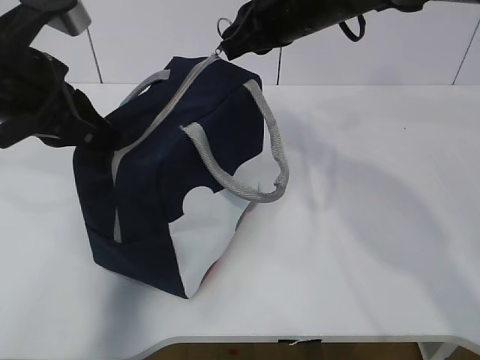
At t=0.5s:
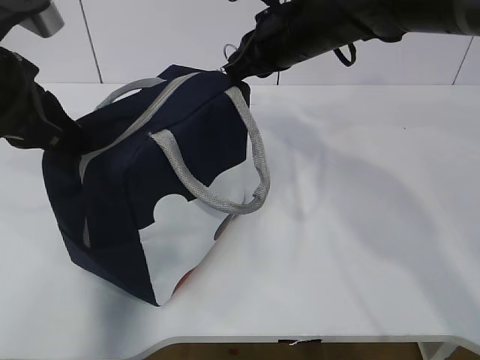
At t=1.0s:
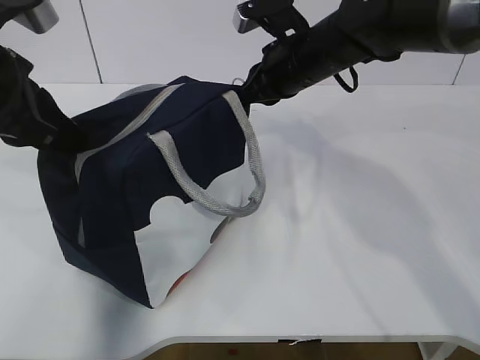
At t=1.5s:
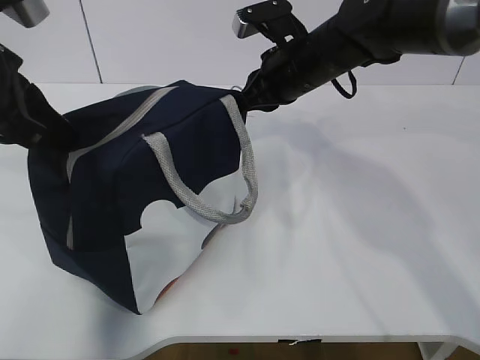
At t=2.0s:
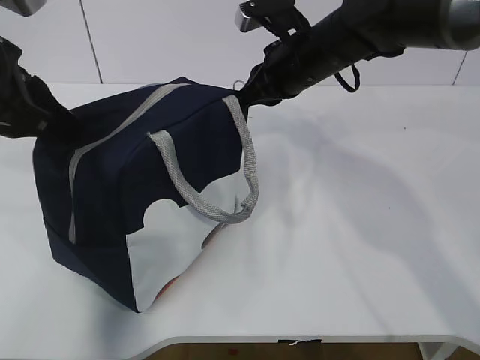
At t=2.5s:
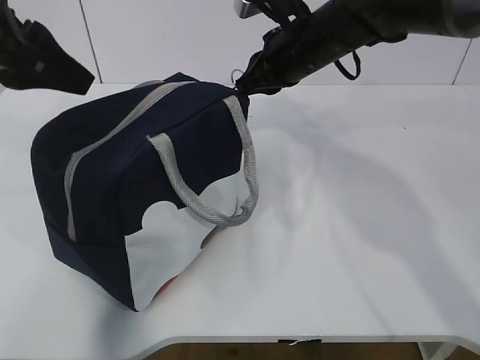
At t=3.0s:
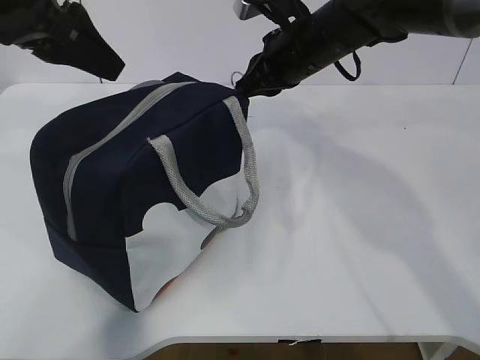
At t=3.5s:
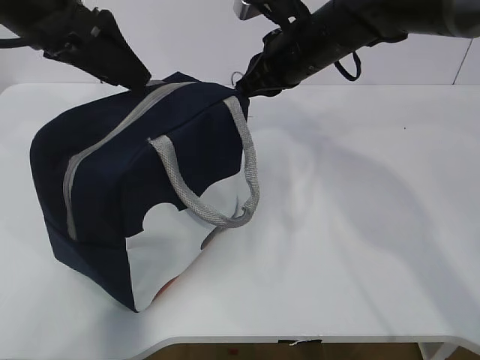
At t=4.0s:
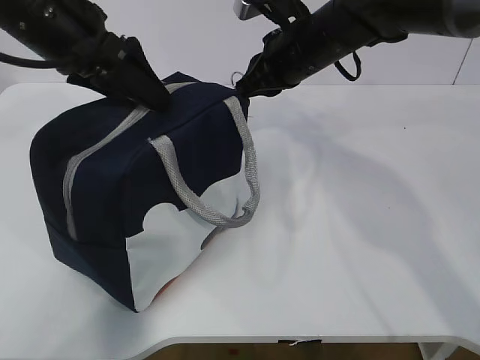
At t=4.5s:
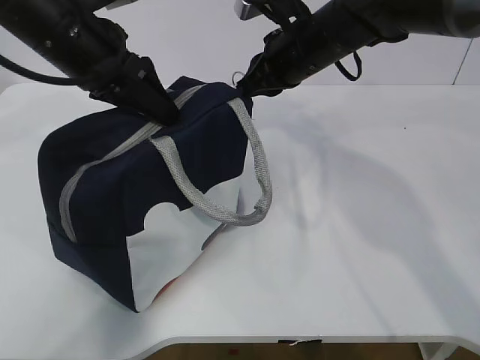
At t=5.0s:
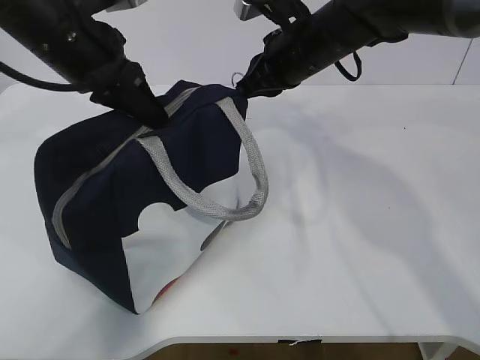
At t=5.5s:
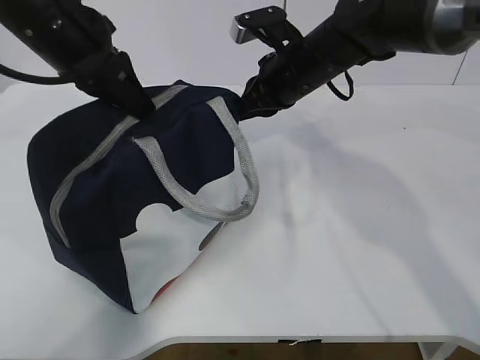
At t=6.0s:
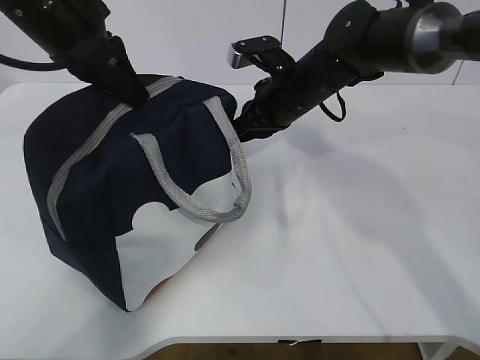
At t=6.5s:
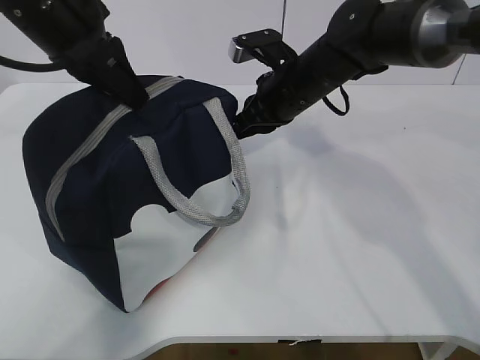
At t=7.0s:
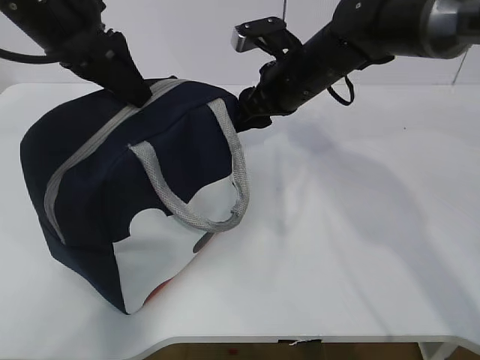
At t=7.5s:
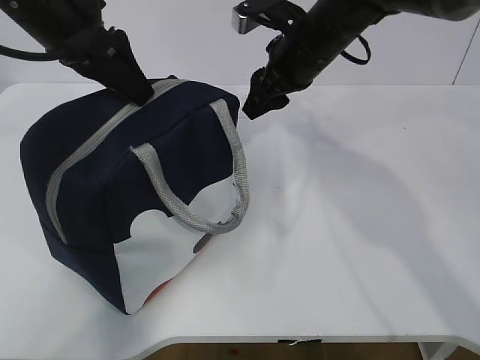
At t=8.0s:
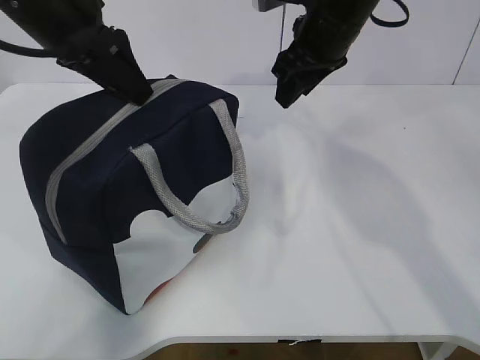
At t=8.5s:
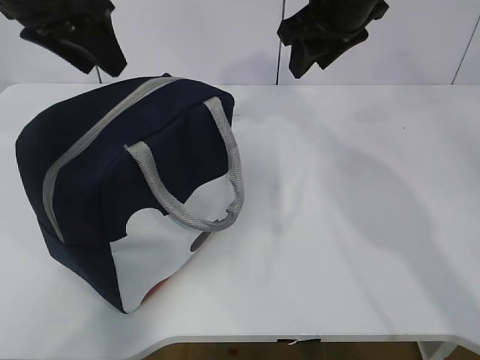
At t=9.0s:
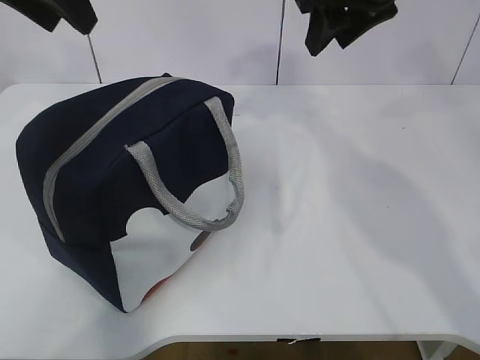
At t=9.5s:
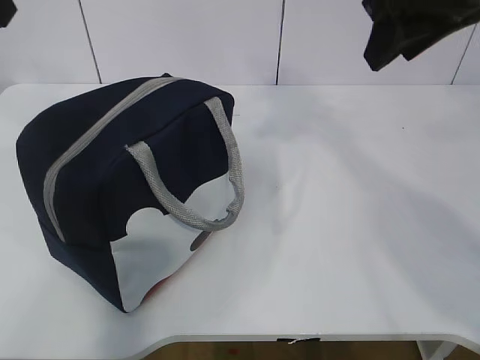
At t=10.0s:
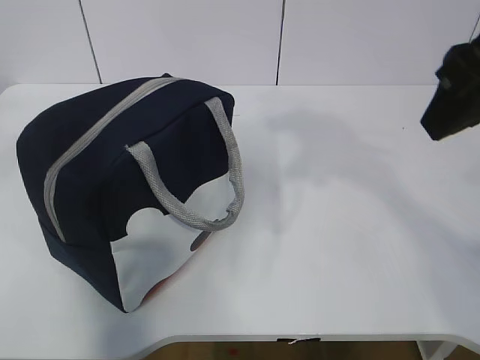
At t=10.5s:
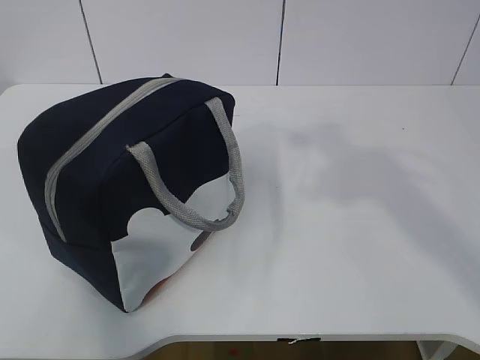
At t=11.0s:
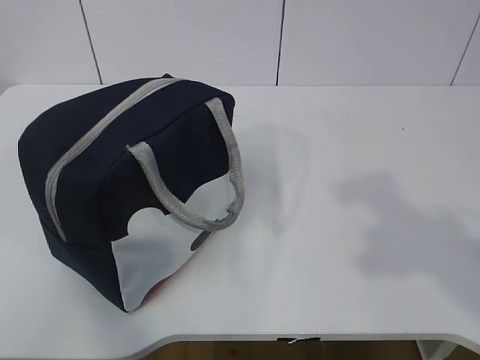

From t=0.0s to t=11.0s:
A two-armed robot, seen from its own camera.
Step, from t=0.0s to t=7.5s: zip up the zipper to close the bag.
From t=0.0s to t=2.0s: The right gripper shifts some 5 cm downward.
From t=2.0s to t=3.5s: The left gripper is displaced forward by some 5 cm, and opens.
From t=3.5s to t=5.5s: The left gripper closes.
From t=5.5s to t=7.5s: The right gripper opens, while the left gripper opens up.
From t=7.5s to t=9.0s: The left gripper is displaced upward by some 5 cm; the right gripper is displaced upward by approximately 10 cm.
From t=9.0s to t=11.0s: The two grippers go roughly 35 cm backward.

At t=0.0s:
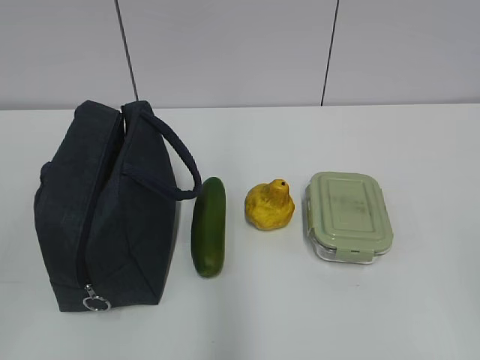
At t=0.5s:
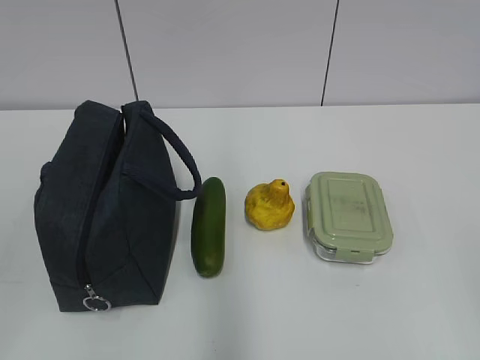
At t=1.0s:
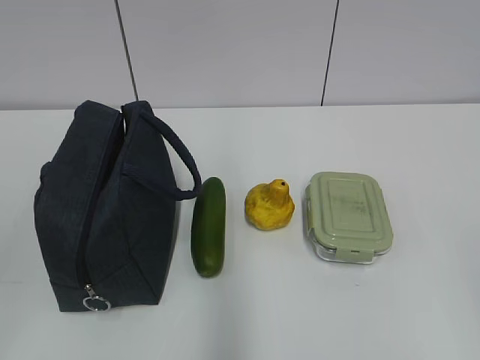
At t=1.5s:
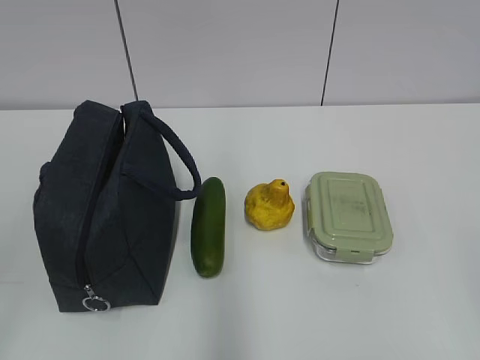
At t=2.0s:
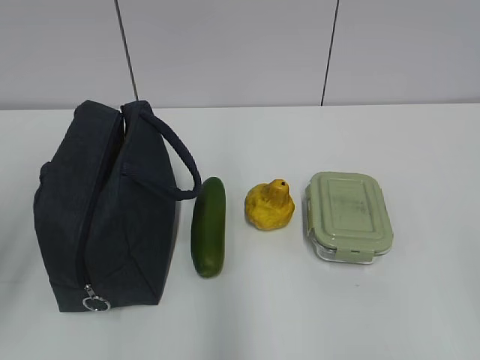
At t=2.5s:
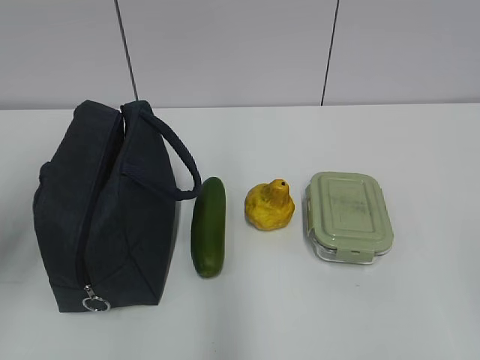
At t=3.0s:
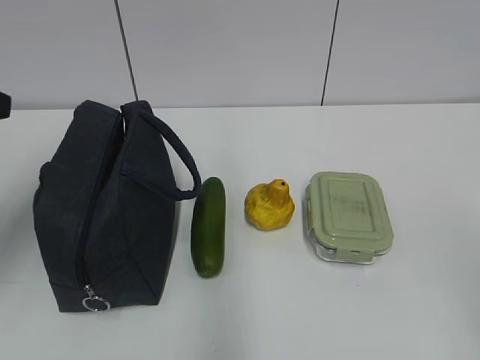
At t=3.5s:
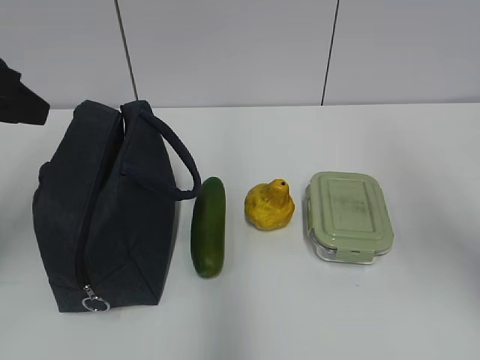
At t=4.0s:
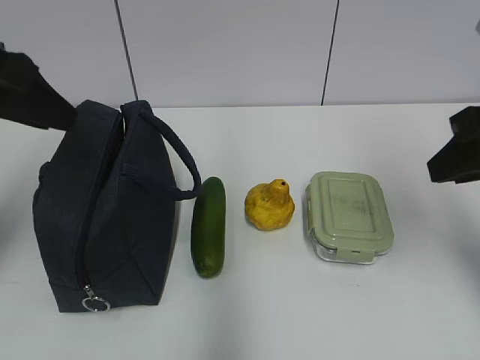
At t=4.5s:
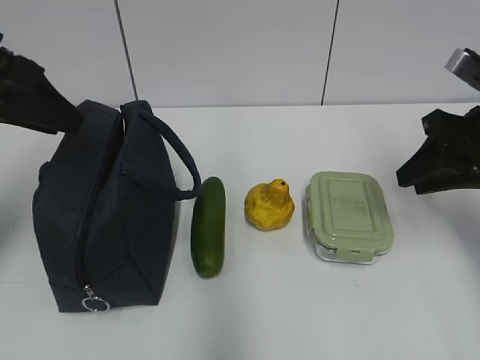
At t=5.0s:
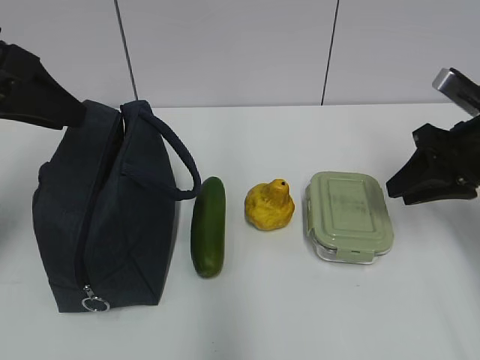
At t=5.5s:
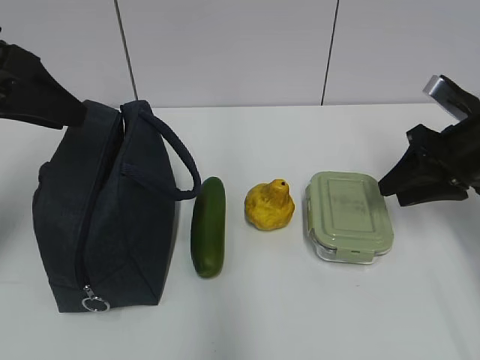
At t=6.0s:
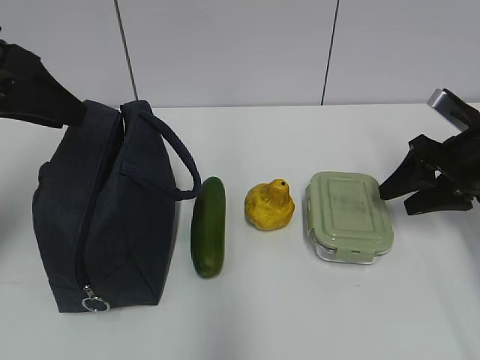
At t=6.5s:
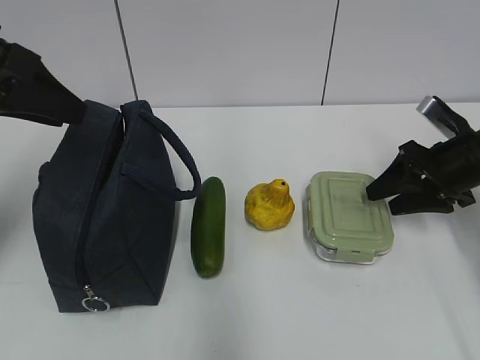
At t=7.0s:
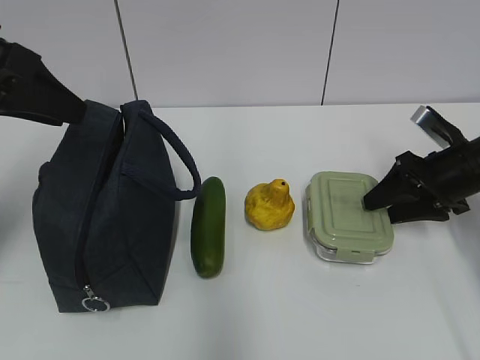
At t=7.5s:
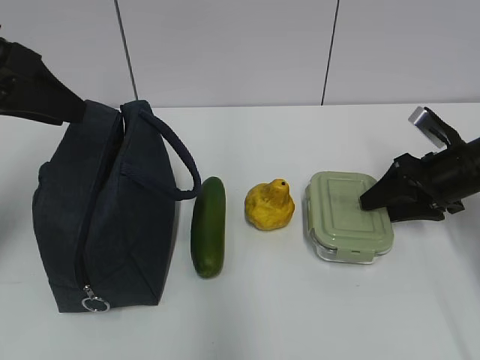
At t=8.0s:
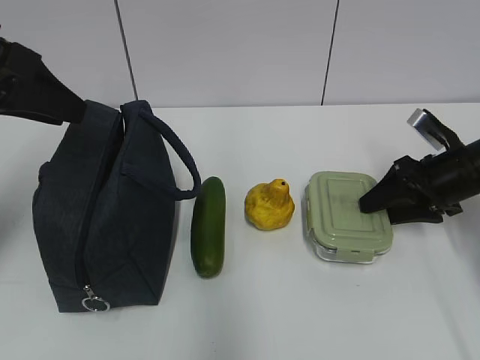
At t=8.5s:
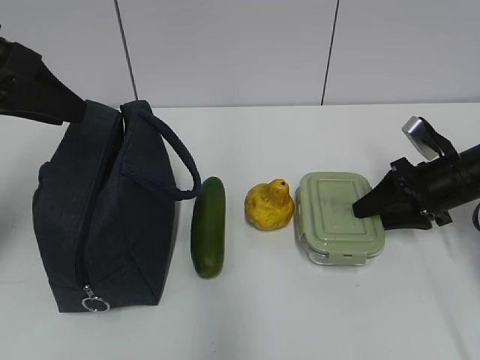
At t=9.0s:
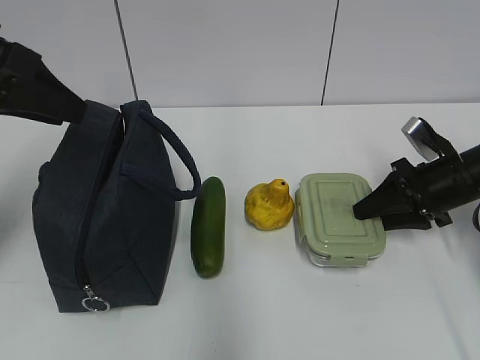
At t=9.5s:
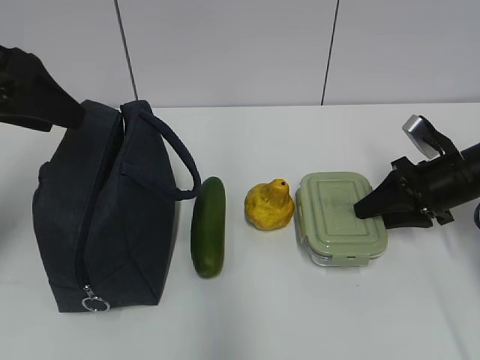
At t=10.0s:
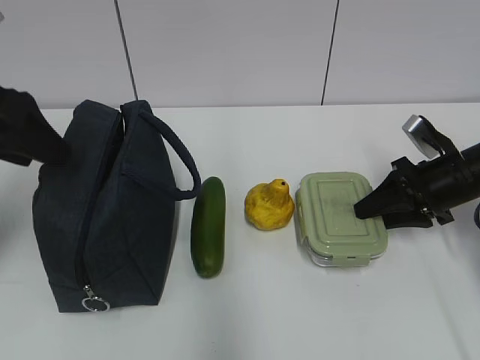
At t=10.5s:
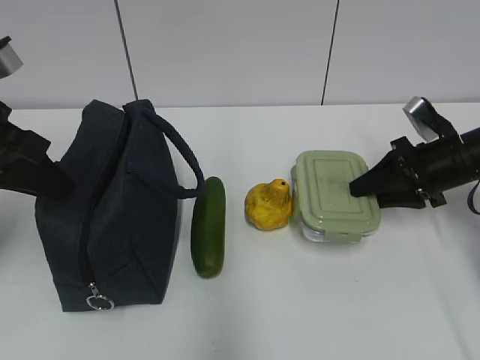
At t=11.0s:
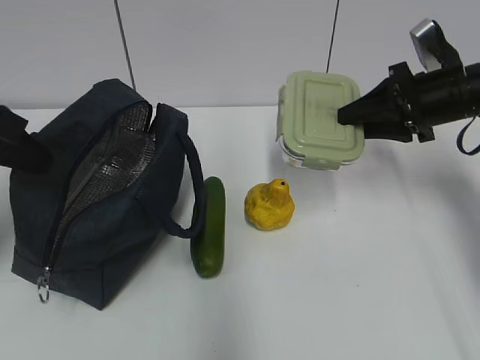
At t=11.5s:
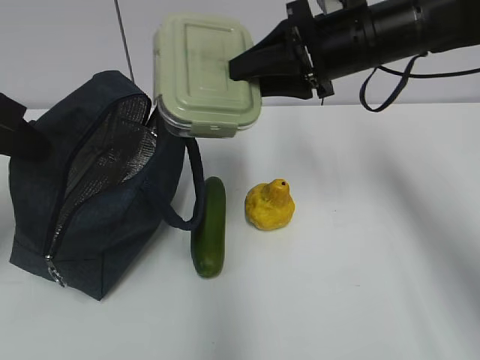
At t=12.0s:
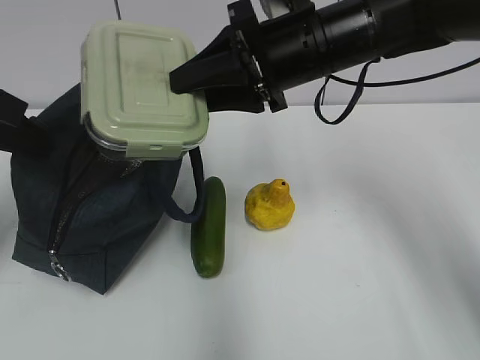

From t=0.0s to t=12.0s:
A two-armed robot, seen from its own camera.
Step, from t=0.0s to t=9.5s: Grab the lunch box with your right hand.
From t=2.0s to t=4.0s: The right gripper moves forward, approximately 25 cm. Meanwhile the left gripper travels forward by approximately 15 cm.
From t=4.0s to t=6.0s: The right gripper shifts some 20 cm downward, forward and to the right, and opens up.
From t=6.0s to t=8.0s: The grippers move only a little.
From t=8.0s to t=10.0s: The left gripper opens its fingers.
From t=10.0s to t=12.0s: The left gripper closes; the right gripper moves to the left and upward, some 25 cm.

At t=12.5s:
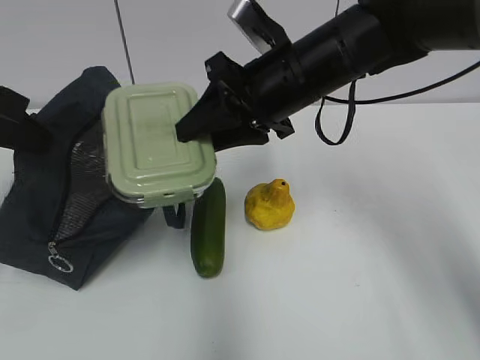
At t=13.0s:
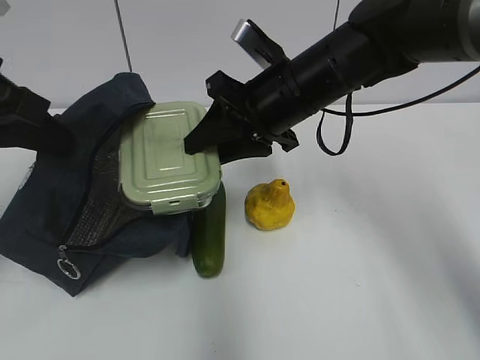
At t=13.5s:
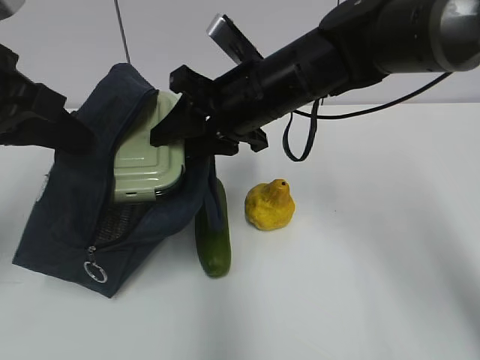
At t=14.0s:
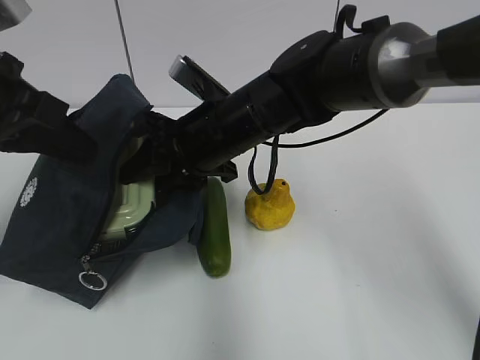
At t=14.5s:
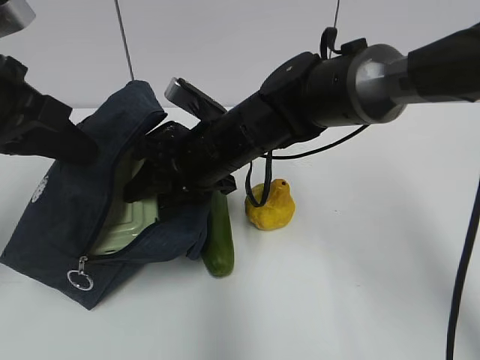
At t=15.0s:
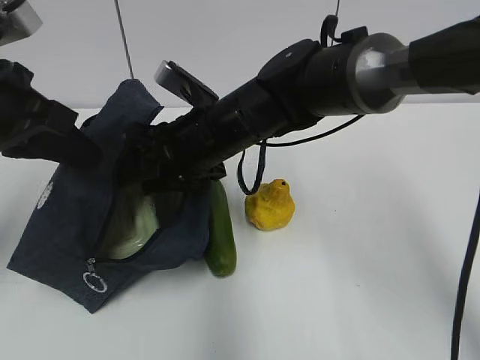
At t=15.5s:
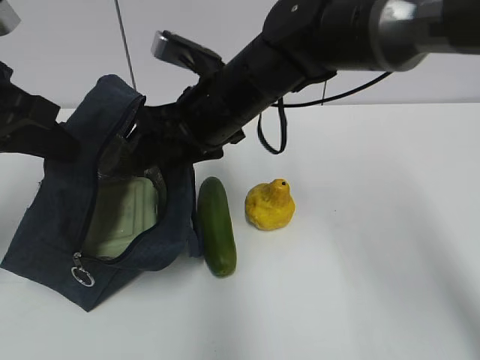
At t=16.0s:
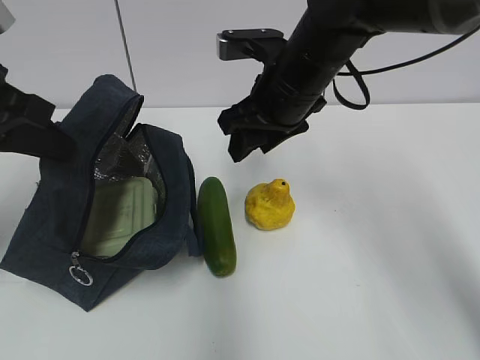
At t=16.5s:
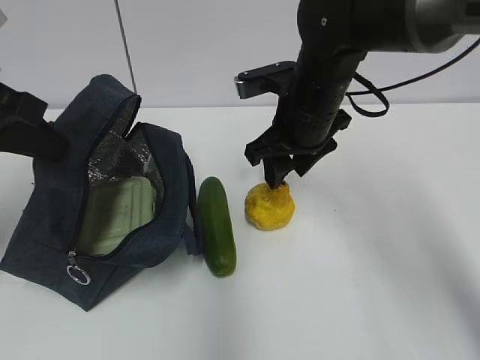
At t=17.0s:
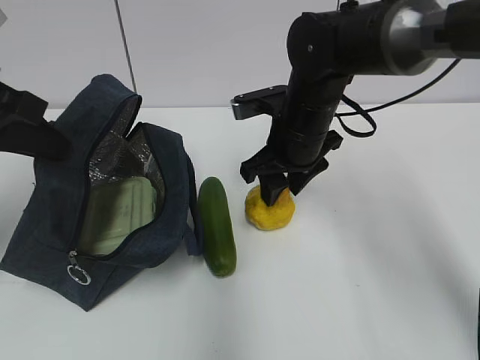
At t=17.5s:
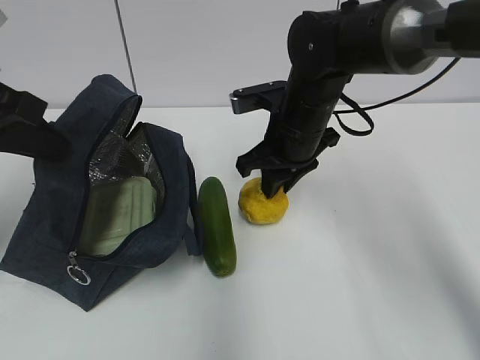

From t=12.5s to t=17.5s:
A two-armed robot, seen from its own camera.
Step, from t=13.0s to t=15.0s: Place it into the bag with your right hand.
Step, from t=15.5s to t=17.0s: Grab the pear with your right hand.
From t=12.5s to t=15.0s: The right gripper shifts roughly 10 cm to the left and downward.
From t=15.0s to t=17.5s: The right gripper shifts some 10 cm to the right, and closes.
